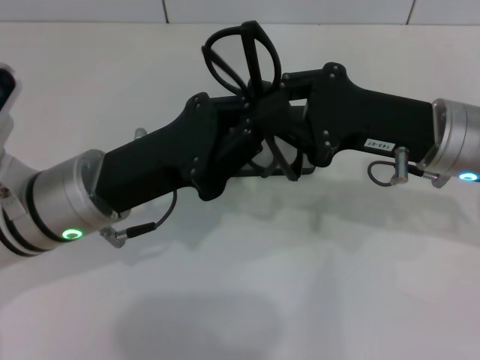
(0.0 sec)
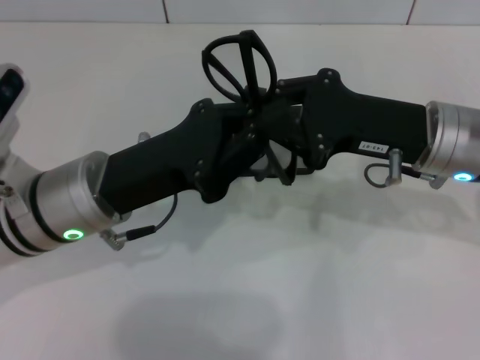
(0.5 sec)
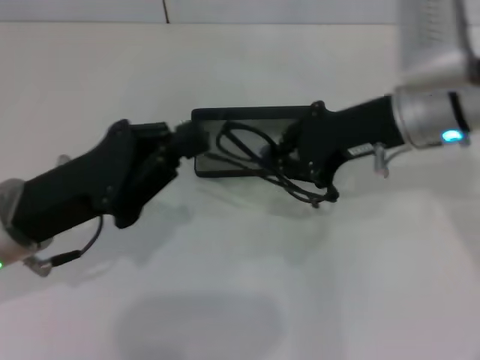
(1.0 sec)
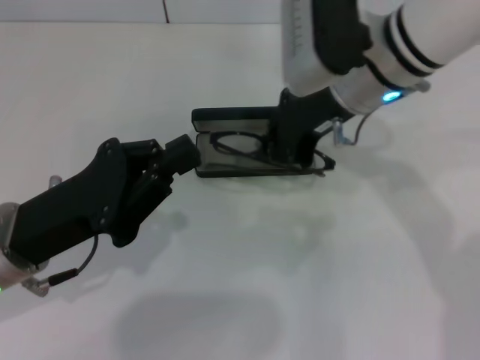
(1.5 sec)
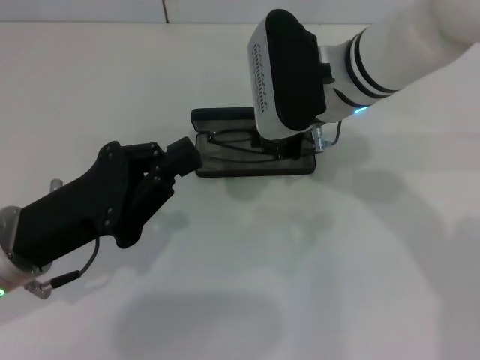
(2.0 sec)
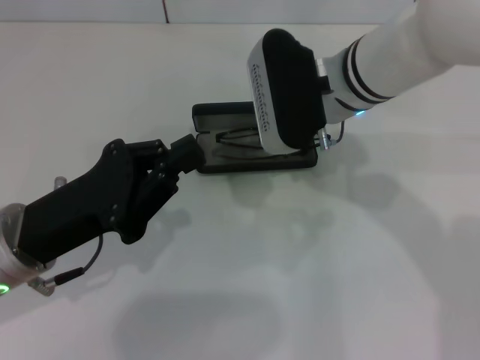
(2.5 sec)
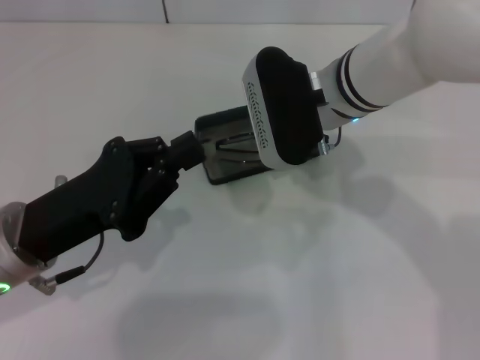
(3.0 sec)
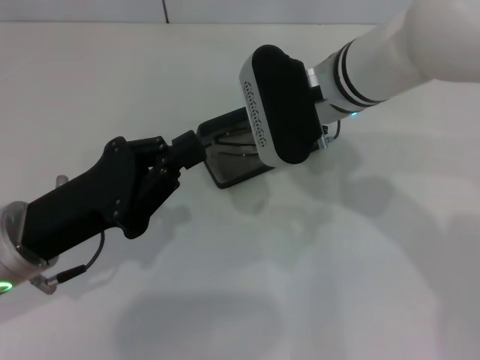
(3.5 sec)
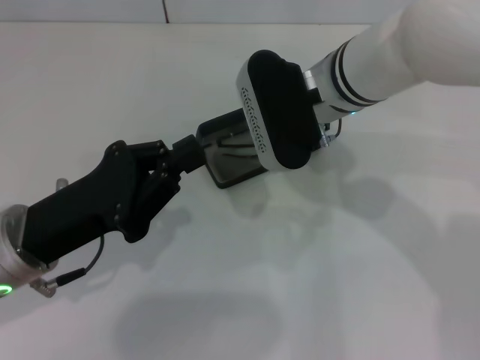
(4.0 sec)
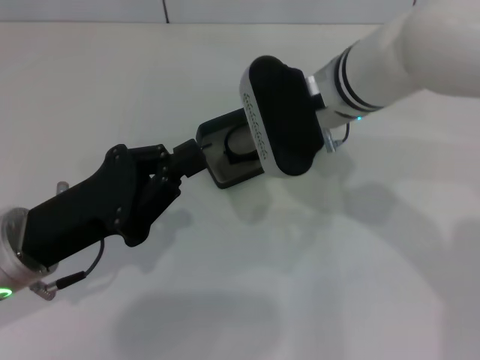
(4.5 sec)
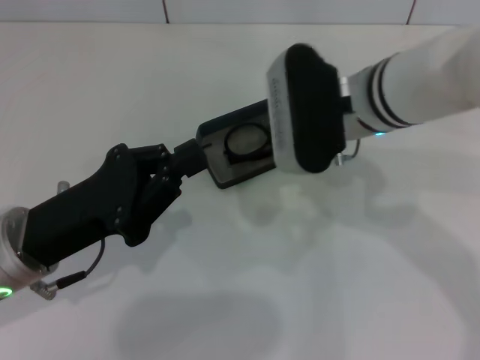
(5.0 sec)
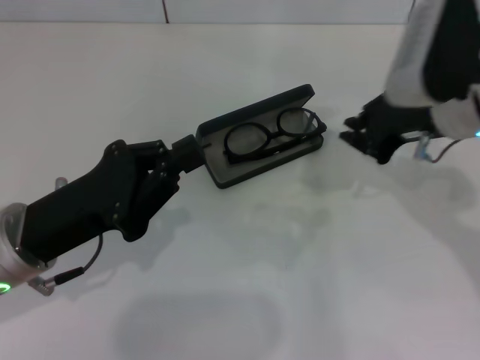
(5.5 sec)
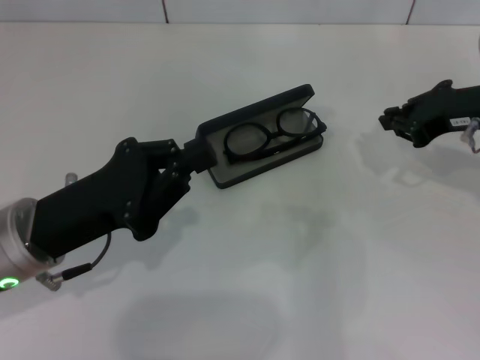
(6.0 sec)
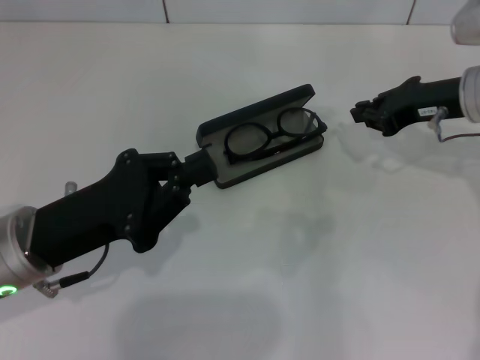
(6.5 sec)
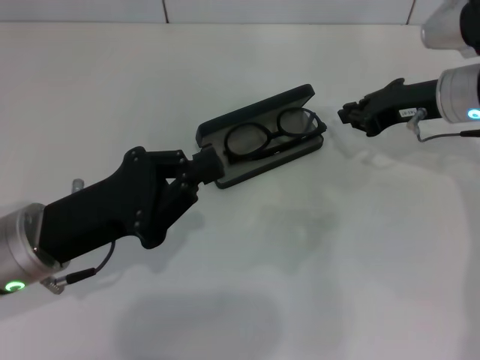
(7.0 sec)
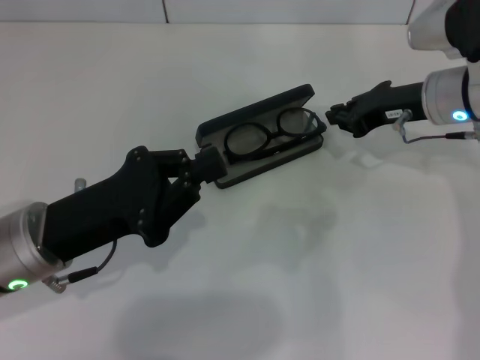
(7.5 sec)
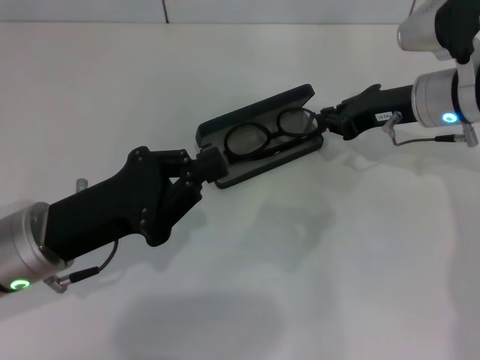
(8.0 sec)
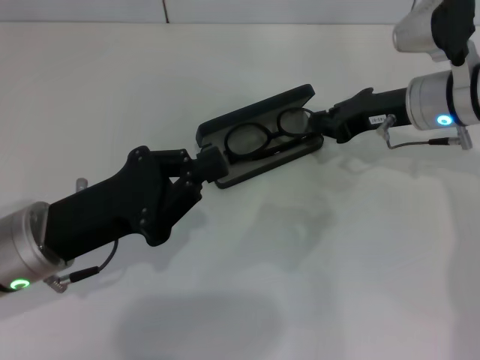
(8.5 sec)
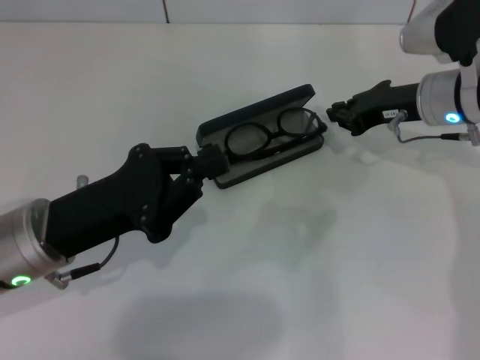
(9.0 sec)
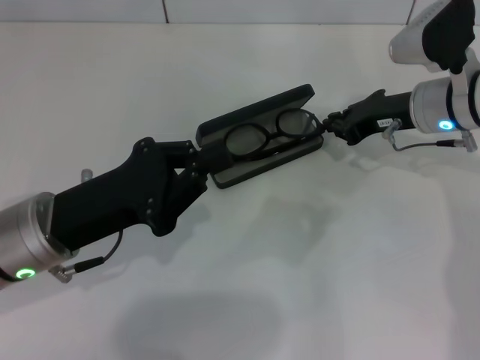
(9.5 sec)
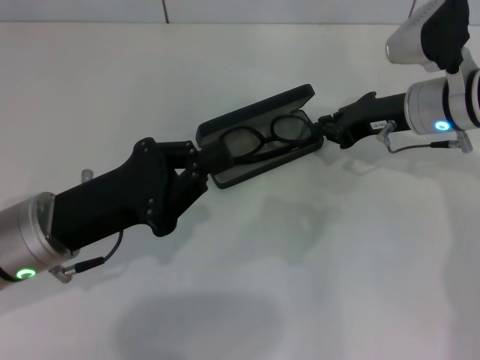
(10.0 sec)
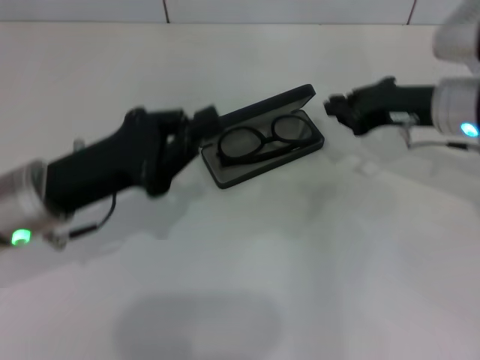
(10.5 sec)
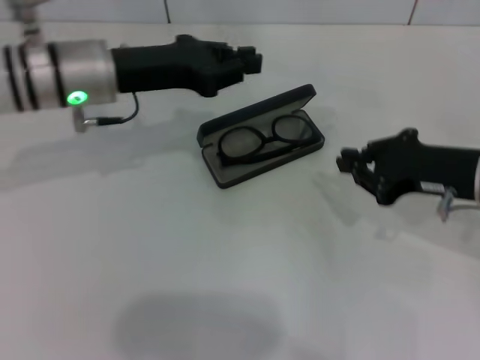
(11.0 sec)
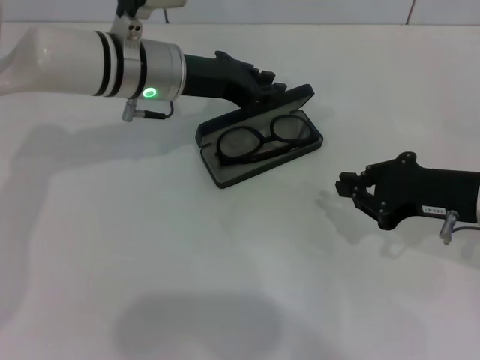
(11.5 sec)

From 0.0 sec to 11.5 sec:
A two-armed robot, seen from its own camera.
Step, from 1.0 sec to 10.0 sec: Put the glasses into the case with your right hand.
From 0.0 sec to 2.0 sec: The right gripper heads to the left and forward, covering some 15 cm. The left gripper heads to the left, covering about 5 cm.
From 2.0 sec to 4.0 sec: There are only small adjustments of the grippers.
From 4.0 sec to 6.0 sec: The right gripper travels to the right by some 20 cm.
From 6.0 sec to 7.5 sec: The right gripper changes place by roughly 5 cm.
From 7.5 sec to 9.5 sec: There are only small adjustments of the grippers.
From 9.5 sec to 11.5 sec: The left gripper travels forward and to the right by approximately 20 cm, and opens up; the right gripper shifts approximately 10 cm backward.

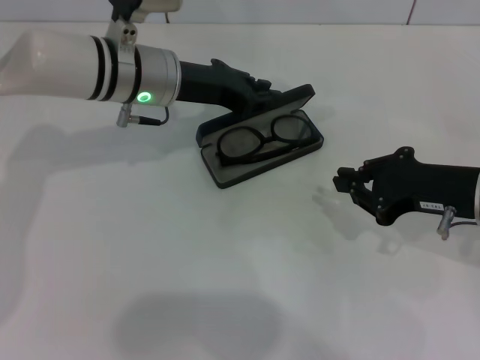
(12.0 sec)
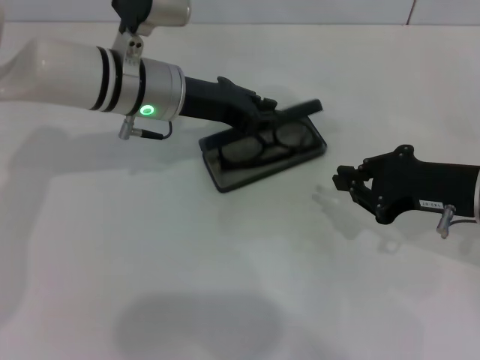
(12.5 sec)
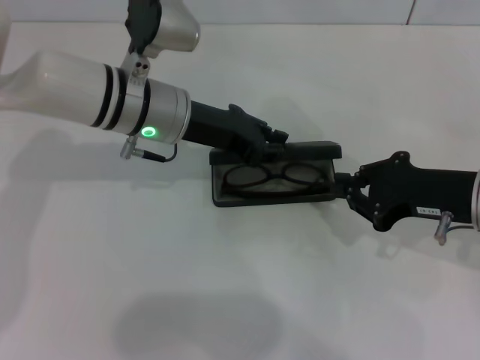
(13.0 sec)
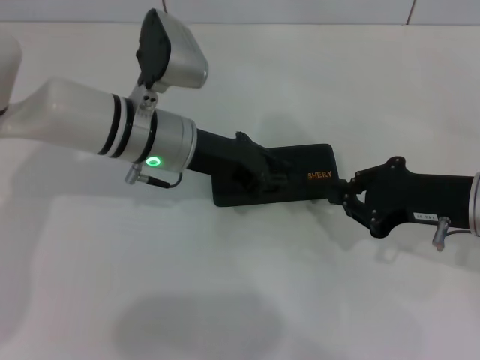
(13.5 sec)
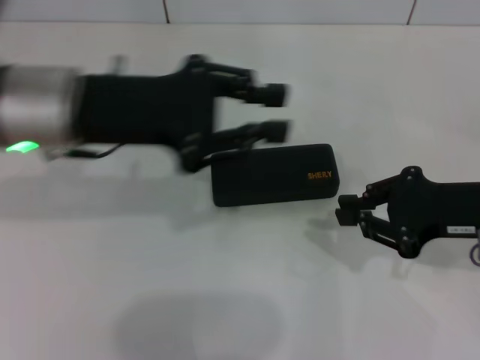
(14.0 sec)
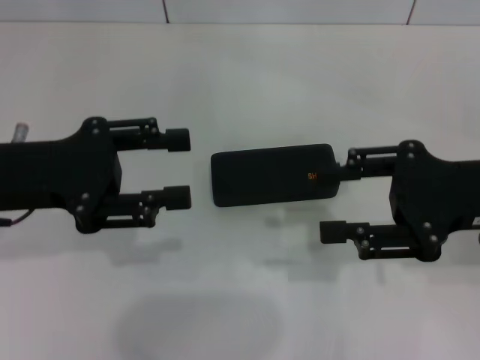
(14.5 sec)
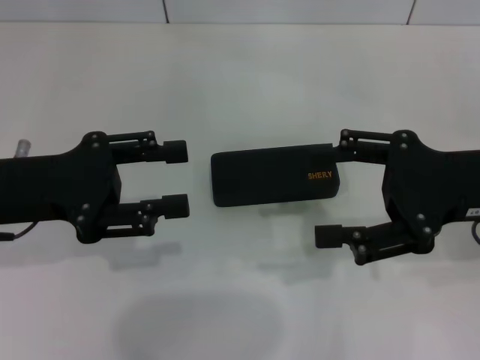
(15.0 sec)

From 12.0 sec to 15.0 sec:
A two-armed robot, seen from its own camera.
From 12.0 sec to 13.5 sec: The left gripper moves roughly 5 cm.
From 13.5 sec to 15.0 sec: The left gripper shifts roughly 20 cm to the left and backward, and opens its fingers. The right gripper shifts about 5 cm upward, and opens up.
